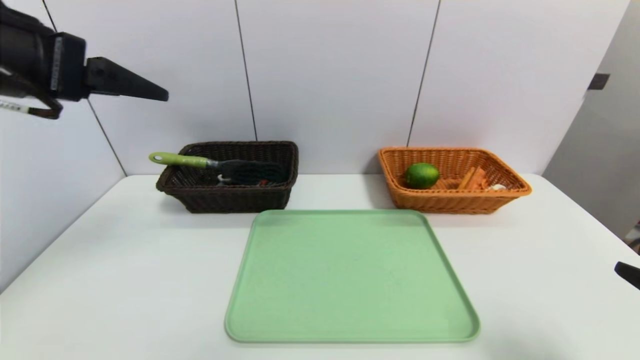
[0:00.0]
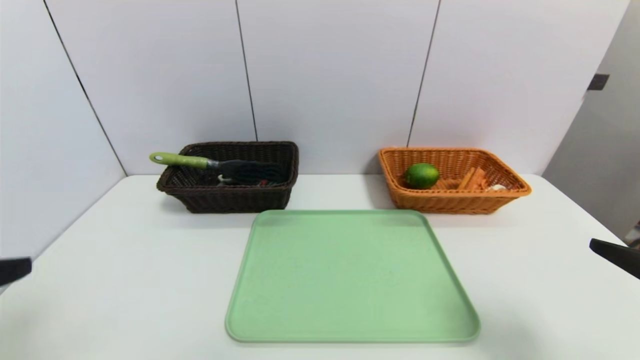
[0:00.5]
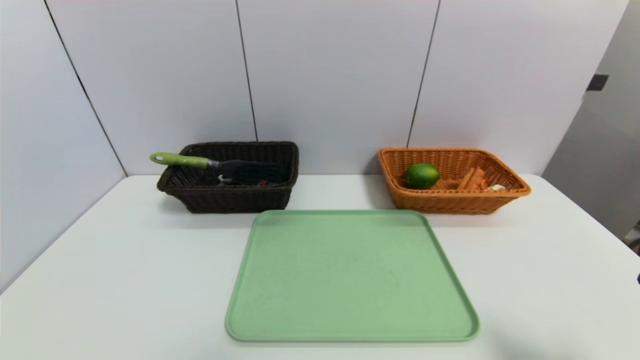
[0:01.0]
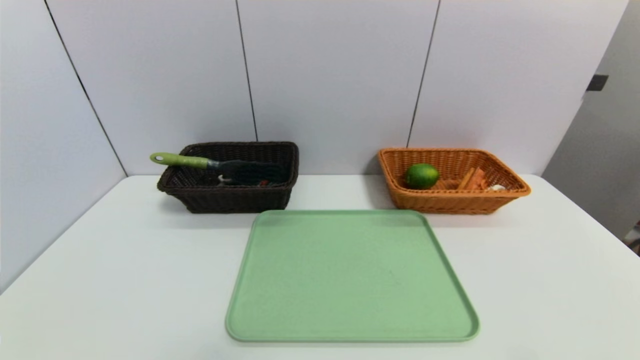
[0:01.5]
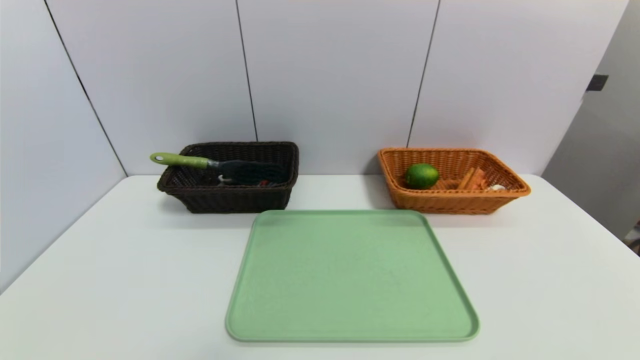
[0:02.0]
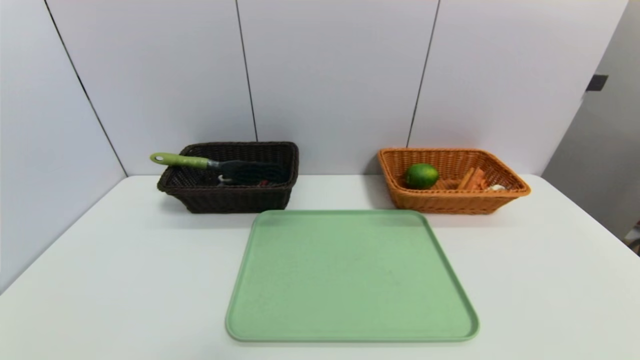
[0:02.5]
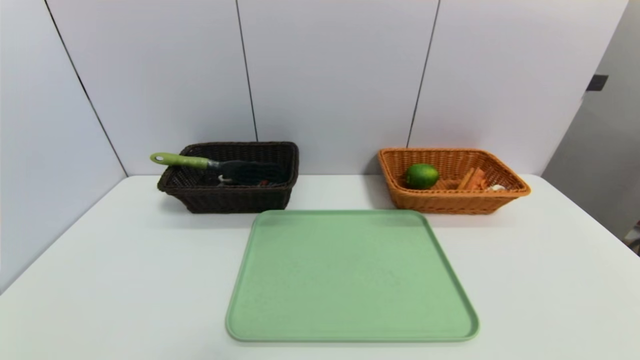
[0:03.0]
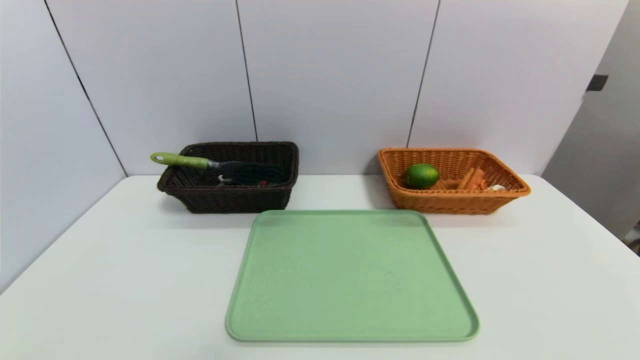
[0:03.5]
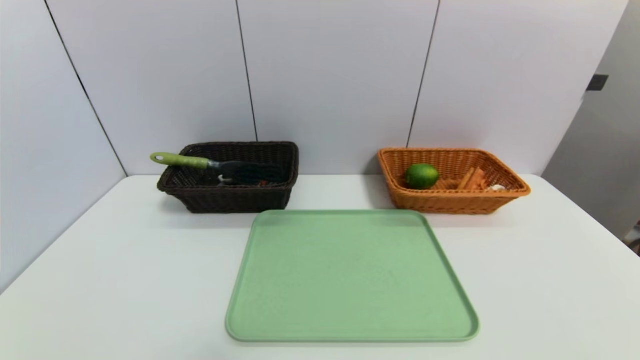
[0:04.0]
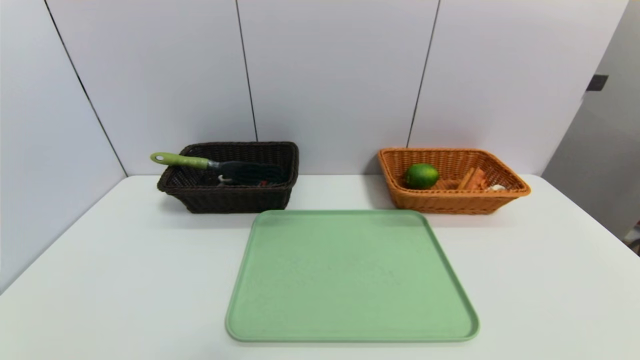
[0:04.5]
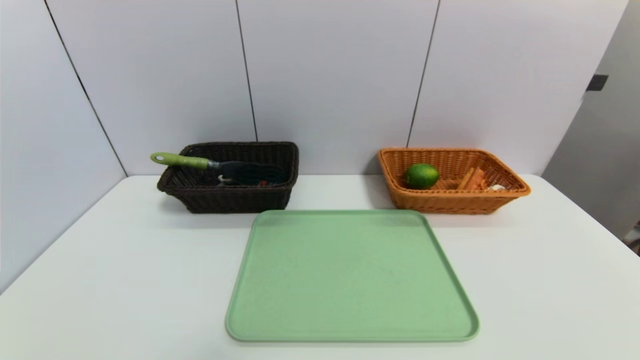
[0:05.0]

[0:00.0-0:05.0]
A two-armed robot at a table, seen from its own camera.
Task of the whole recording: place the food in the right basket with the right gripper, and place the non food items in the left basket with the left gripper.
0:00.0 to 0:02.5: The right gripper shifts about 15 cm downward and backward. Meanwhile the left gripper goes some 40 cm backward and downward.
